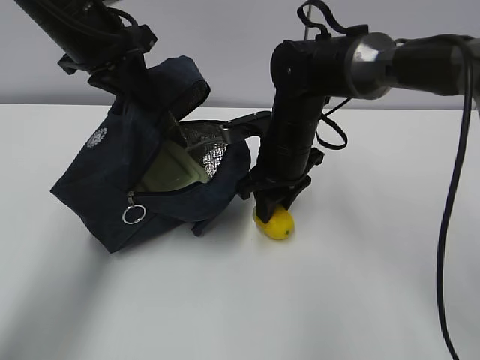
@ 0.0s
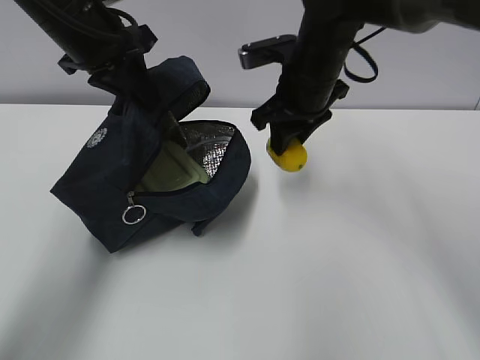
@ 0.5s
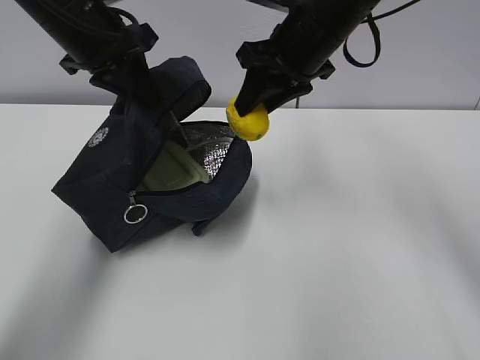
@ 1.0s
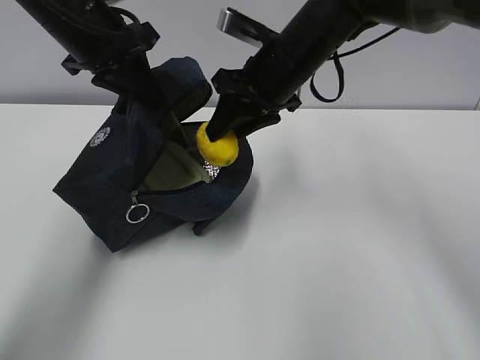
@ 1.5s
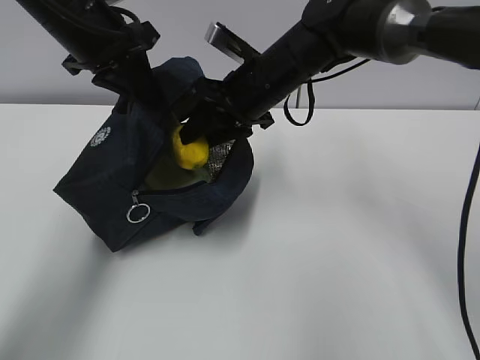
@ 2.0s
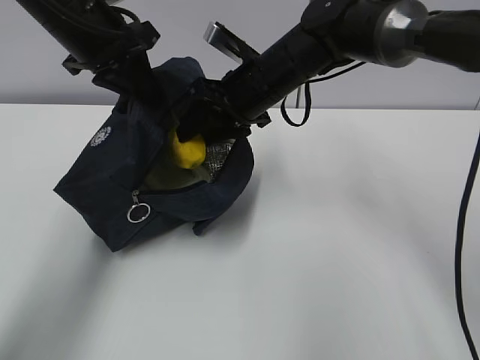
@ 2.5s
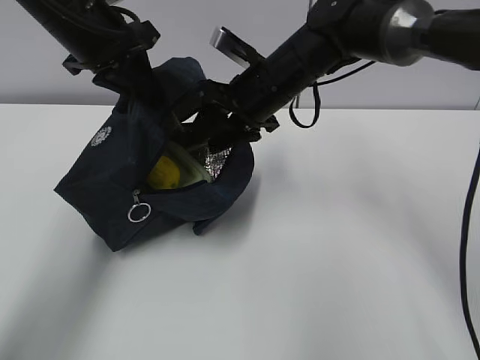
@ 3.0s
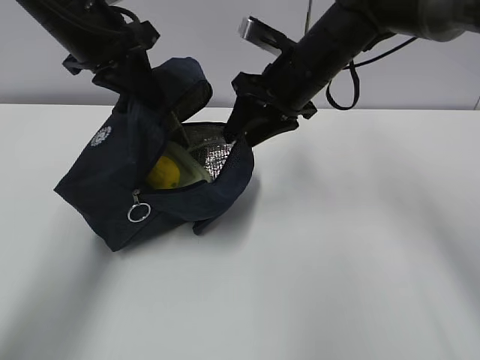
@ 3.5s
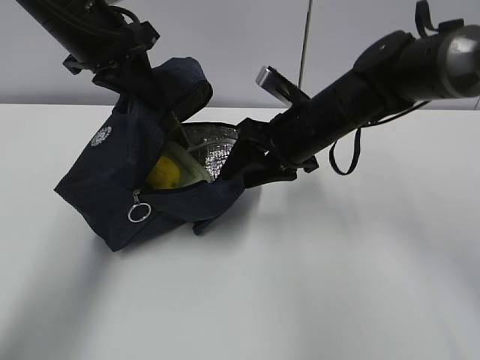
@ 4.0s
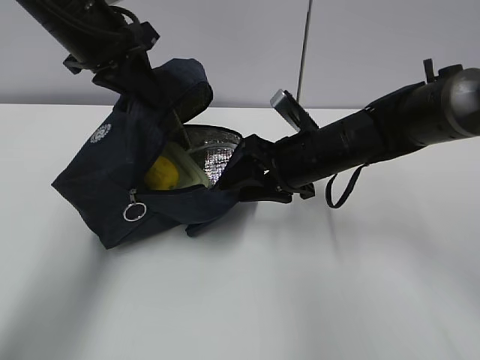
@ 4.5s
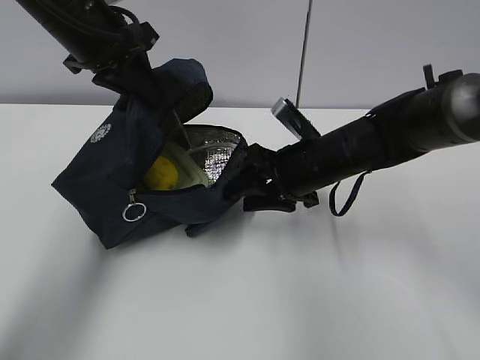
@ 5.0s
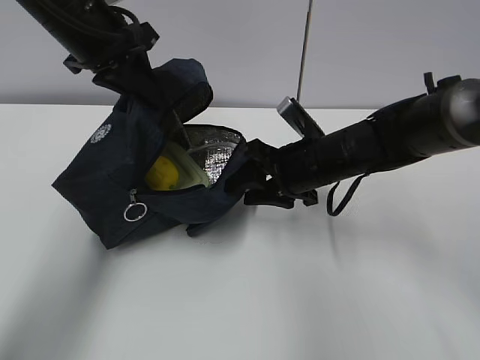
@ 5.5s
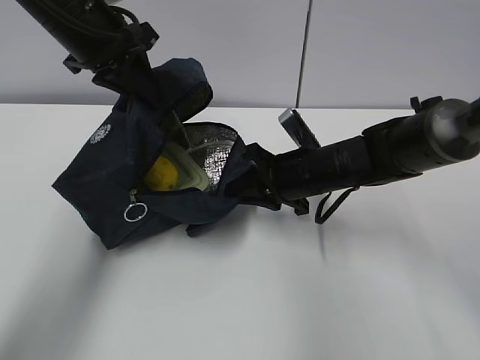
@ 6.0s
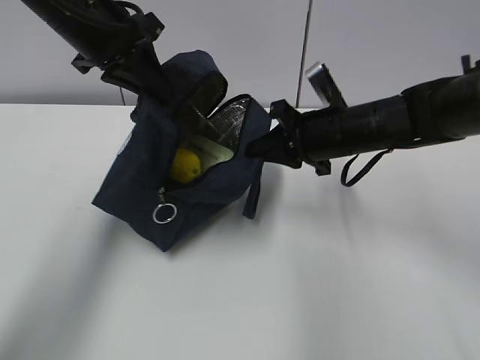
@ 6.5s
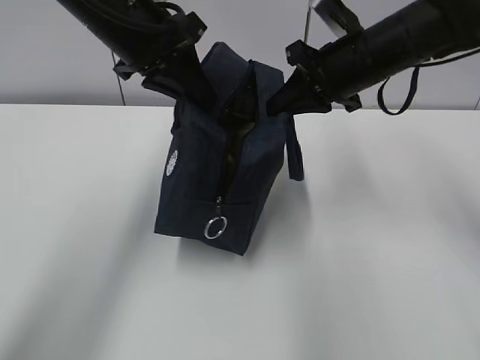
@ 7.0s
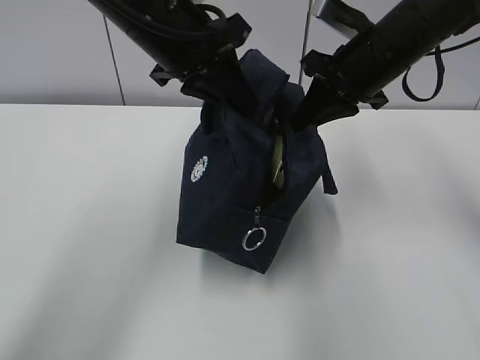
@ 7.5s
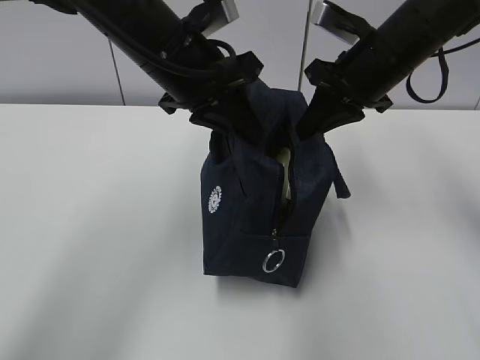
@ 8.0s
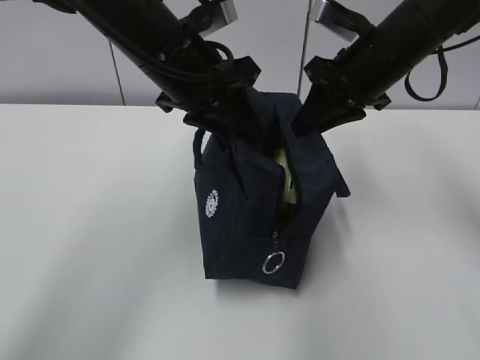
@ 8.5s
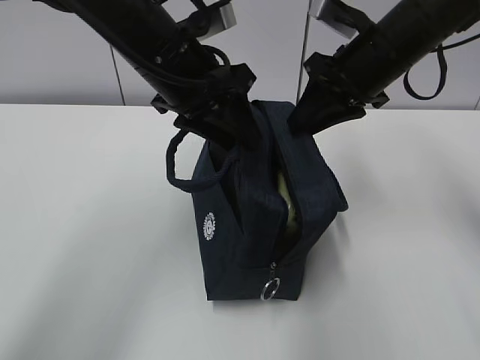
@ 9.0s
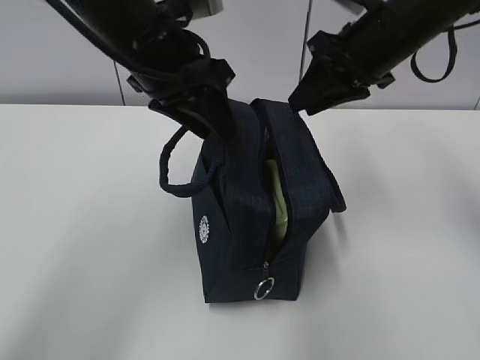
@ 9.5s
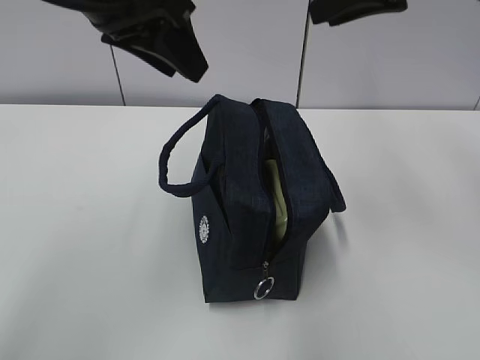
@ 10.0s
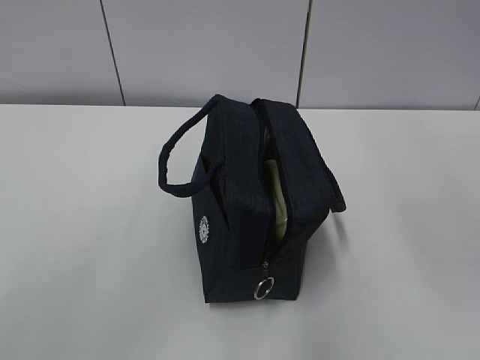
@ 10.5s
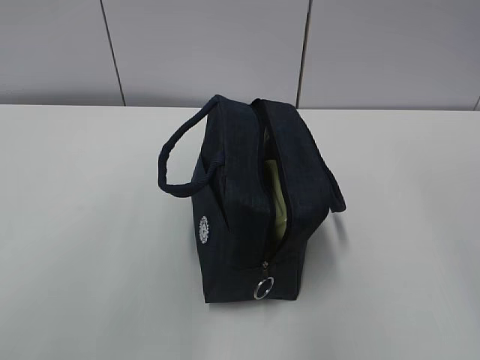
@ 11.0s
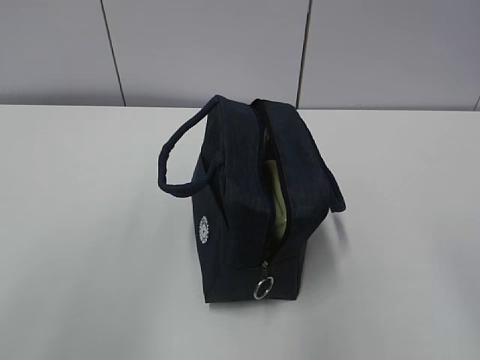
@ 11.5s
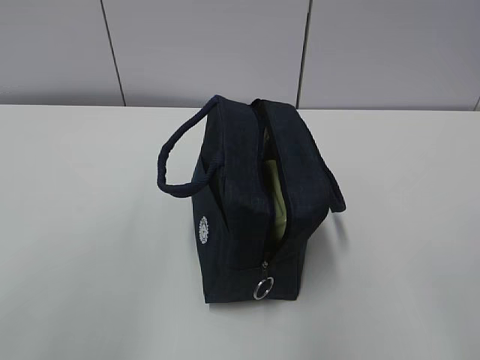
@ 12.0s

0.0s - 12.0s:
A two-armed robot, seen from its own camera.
Step, 0.5s - 2.5s: Stand the lunch bag upright with your right hand.
0.0s - 2.0s: The right gripper moves upward, about 5 cm.
2.0s - 4.0s: The right gripper ends up roughly 5 cm from where it was.
4.0s - 6.0s: The right gripper moves downward, roughly 5 cm, and closes up.
6.0s - 8.0s: The left gripper is displaced to the right by some 10 cm; the right gripper goes approximately 15 cm upward and to the right.
8.0s - 10.0s: Both grippers move upward, approximately 10 cm. The left gripper opens. Meanwhile the right gripper opens up.
10.0s - 12.0s: The left gripper shifts about 30 cm backward and to the left. The right gripper moves backward, approximately 30 cm.

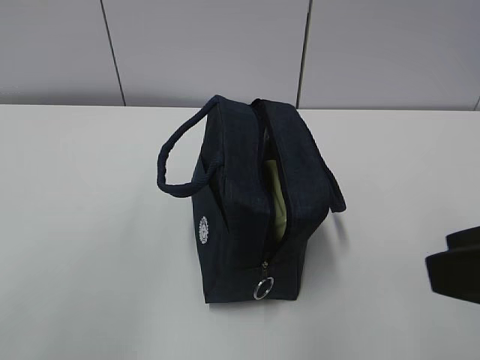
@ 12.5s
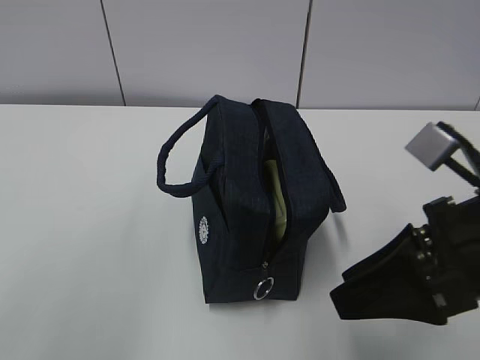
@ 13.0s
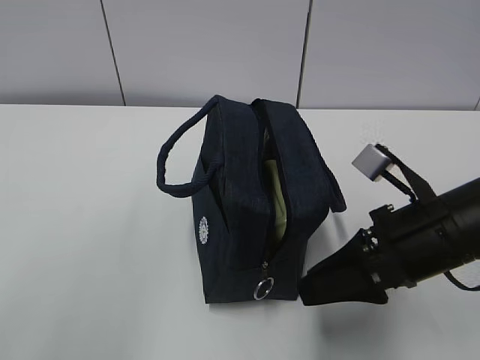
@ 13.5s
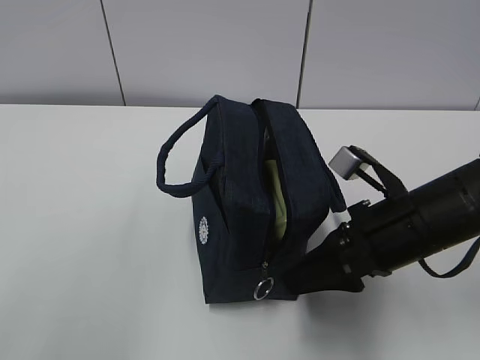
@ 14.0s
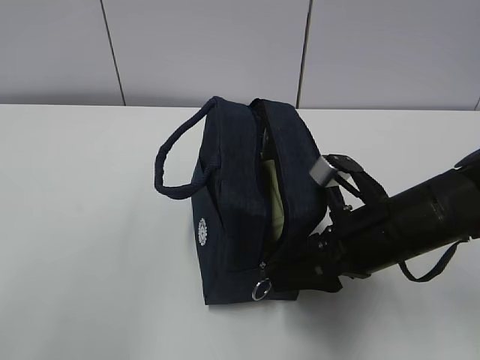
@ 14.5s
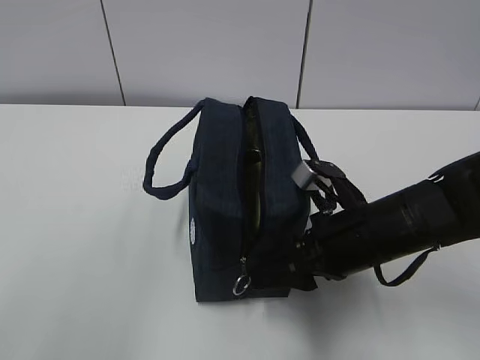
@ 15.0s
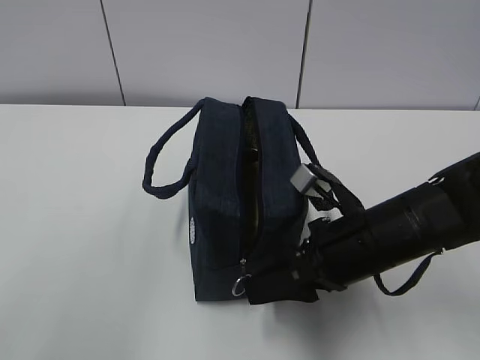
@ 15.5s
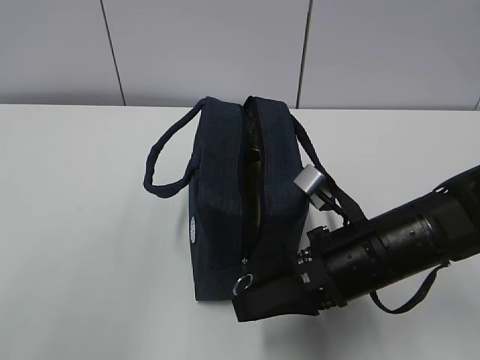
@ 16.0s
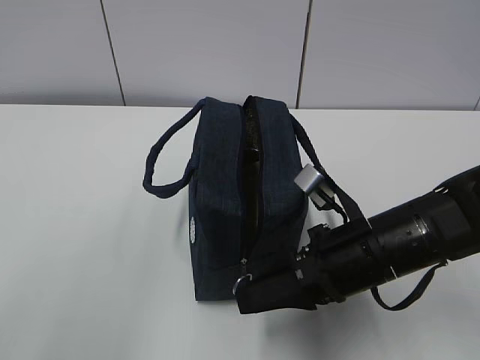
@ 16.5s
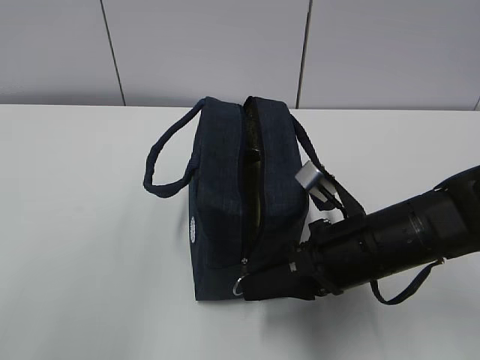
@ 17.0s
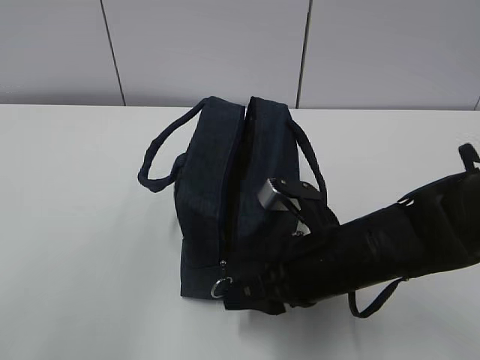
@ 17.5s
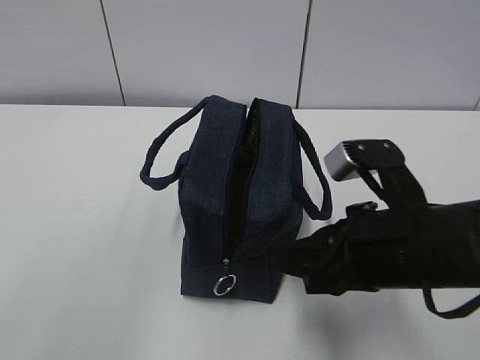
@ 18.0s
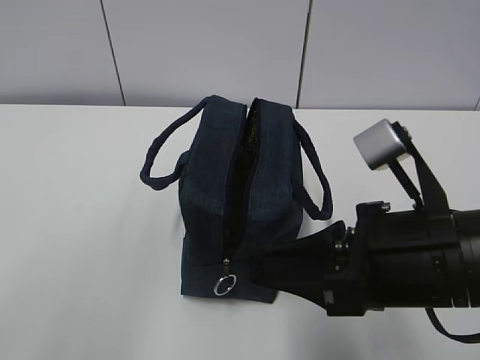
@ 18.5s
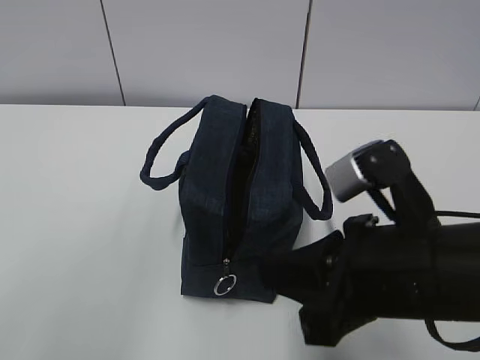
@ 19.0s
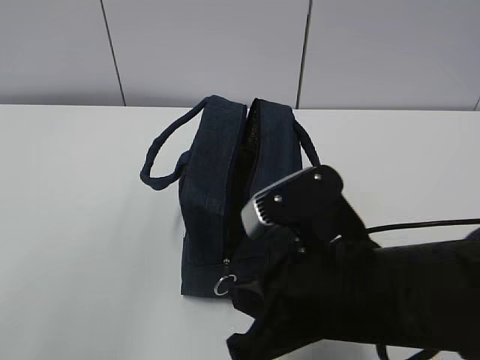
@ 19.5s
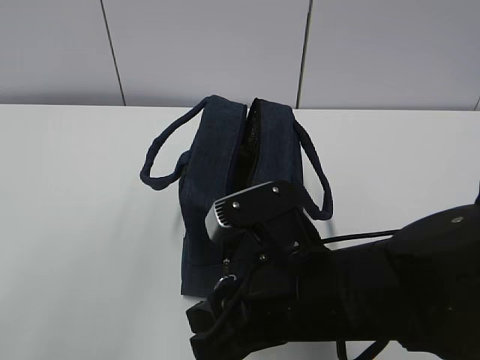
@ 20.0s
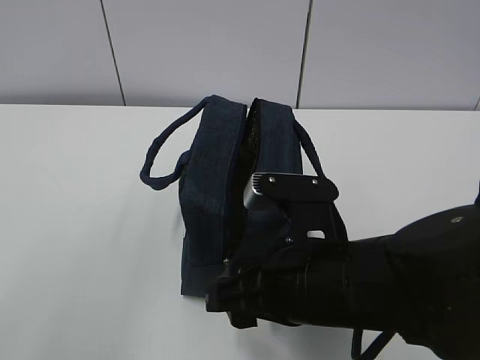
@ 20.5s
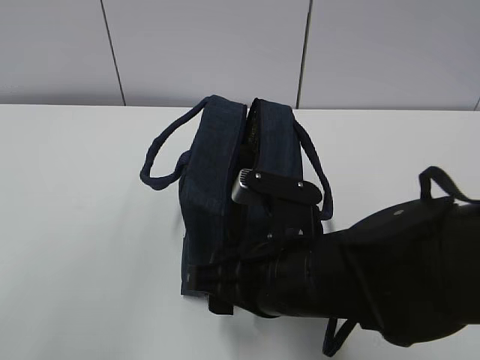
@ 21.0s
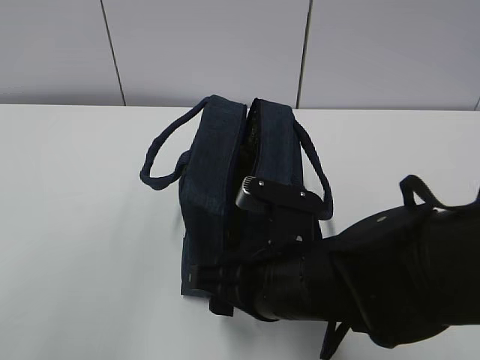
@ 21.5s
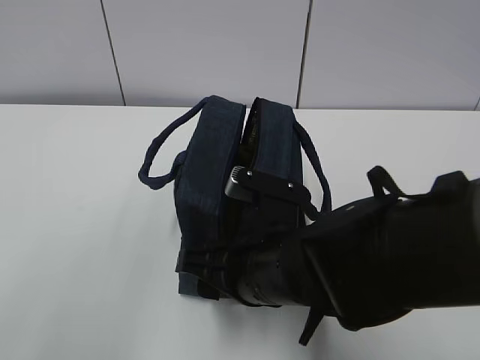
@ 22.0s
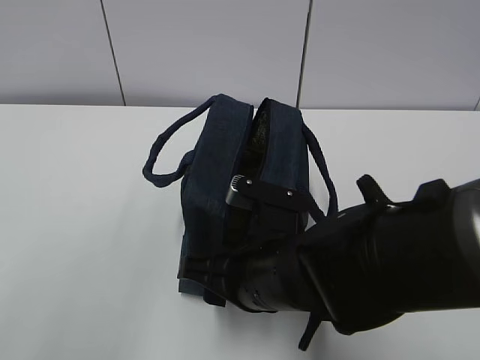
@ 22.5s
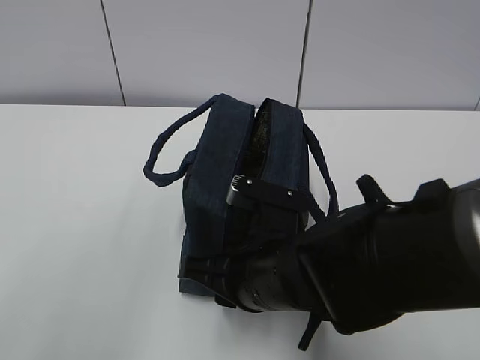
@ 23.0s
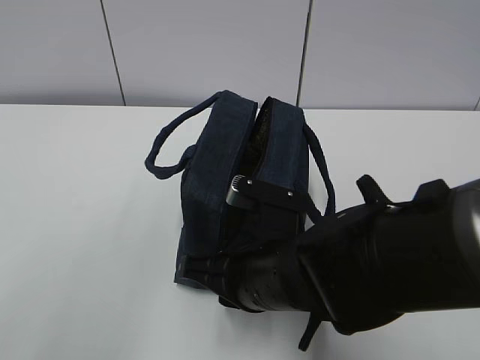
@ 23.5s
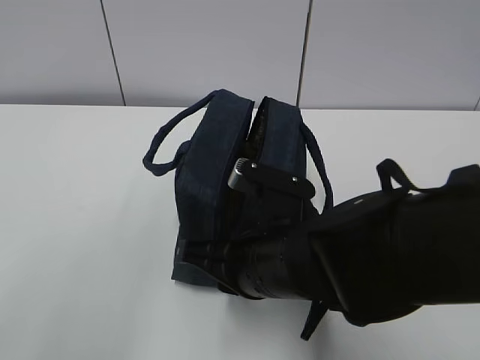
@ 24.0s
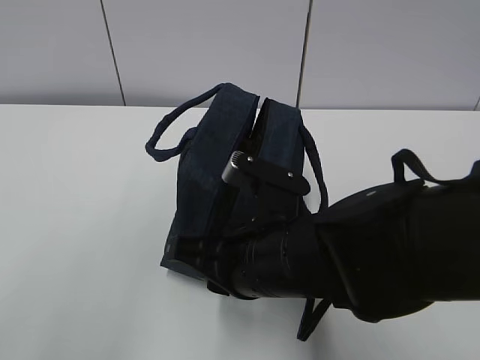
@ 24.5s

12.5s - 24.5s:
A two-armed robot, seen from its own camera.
12.5s - 14.5s: The right gripper goes some 20 cm forward and downward.
16.5s - 18.5s: The right gripper travels upward and backward by roughly 10 cm, and closes its fingers.
18.5s - 20.5s: The right gripper moves to the left and downward, some 10 cm, and opens its fingers.
20.5s - 22.5s: The right gripper changes place by about 5 cm.
22.5s - 24.5s: The right gripper closes.

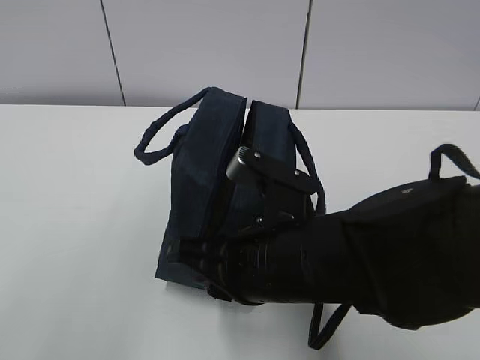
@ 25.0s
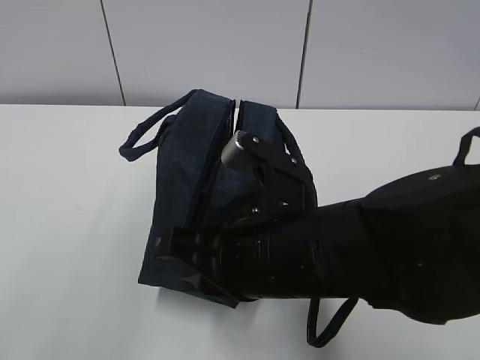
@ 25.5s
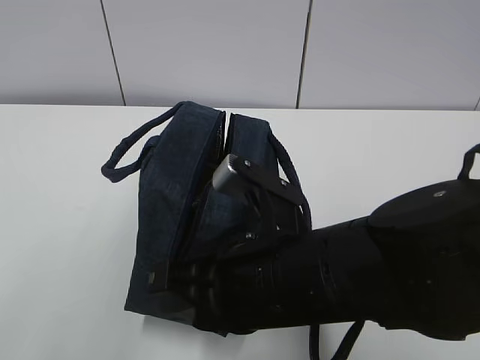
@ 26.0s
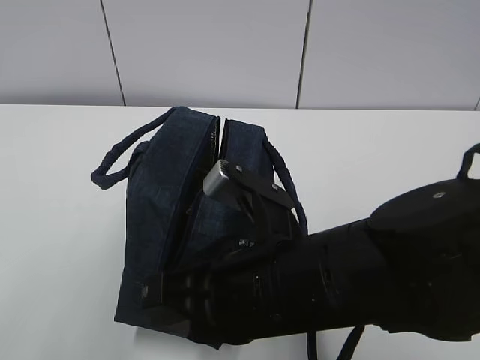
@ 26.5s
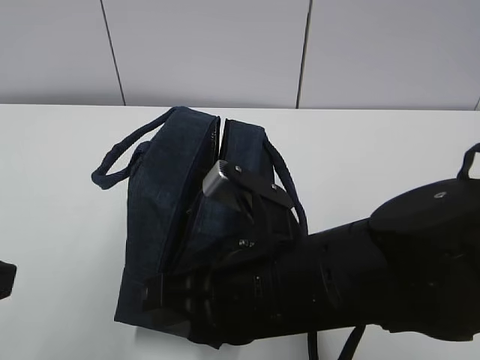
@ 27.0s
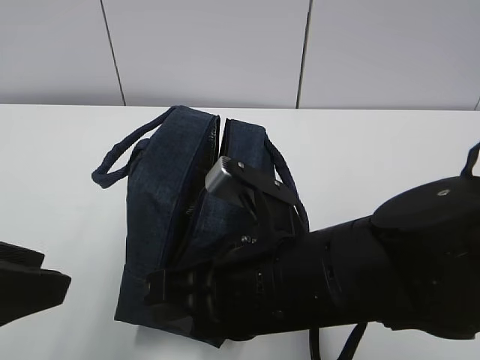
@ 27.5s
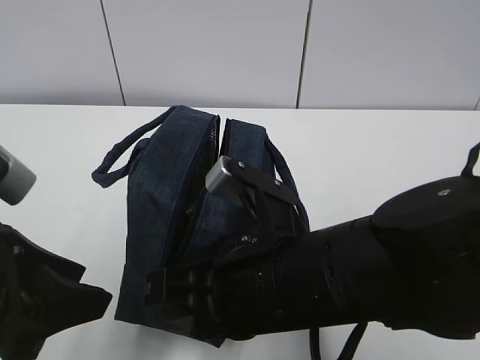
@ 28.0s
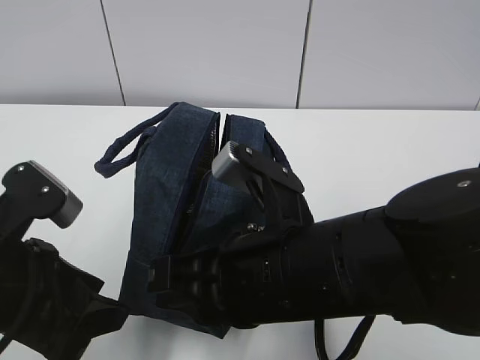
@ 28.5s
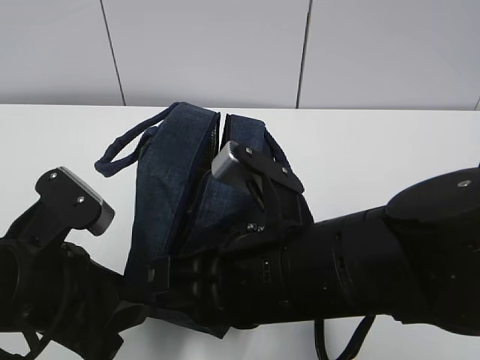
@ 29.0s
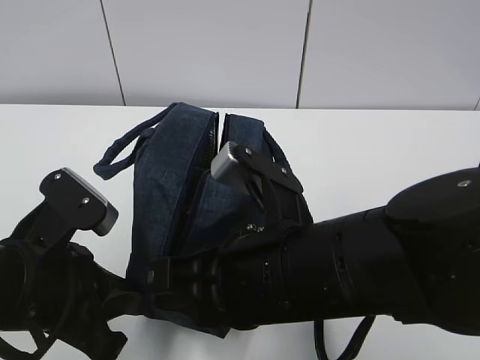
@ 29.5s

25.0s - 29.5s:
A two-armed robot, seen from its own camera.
25.0s - 27.0s: The left gripper shifts approximately 10 cm downward.
27.0s - 29.5s: The left gripper moves downward, to the right and forward, some 15 cm, and closes its fingers.
